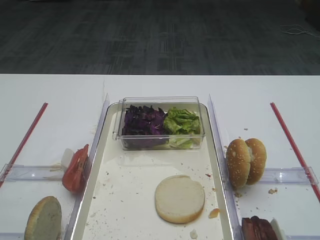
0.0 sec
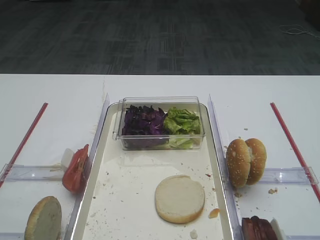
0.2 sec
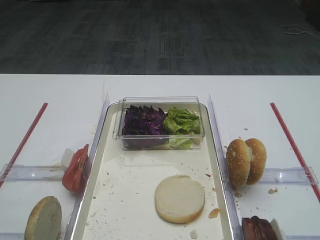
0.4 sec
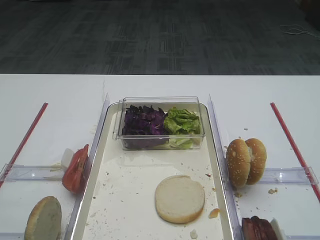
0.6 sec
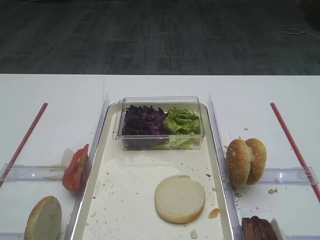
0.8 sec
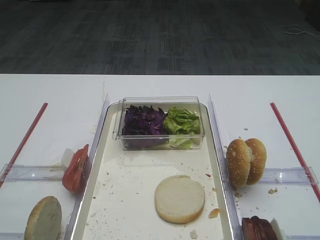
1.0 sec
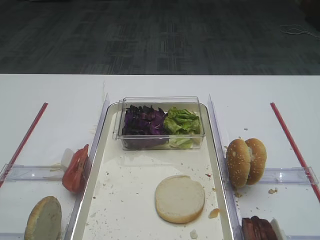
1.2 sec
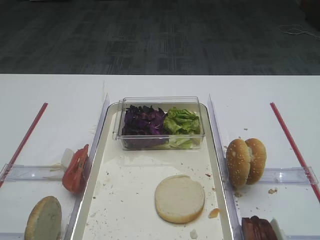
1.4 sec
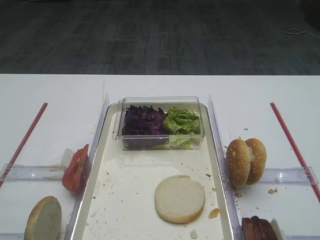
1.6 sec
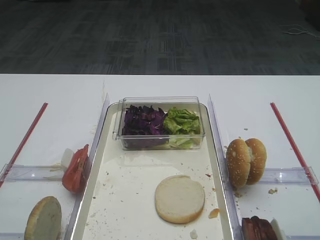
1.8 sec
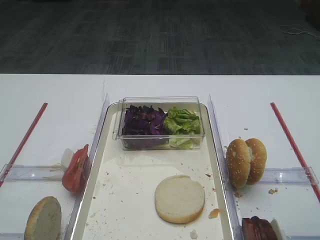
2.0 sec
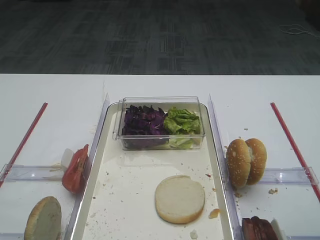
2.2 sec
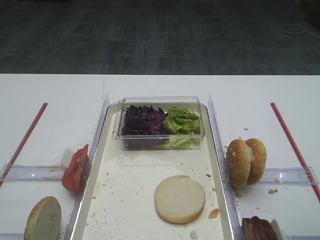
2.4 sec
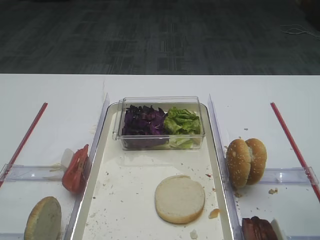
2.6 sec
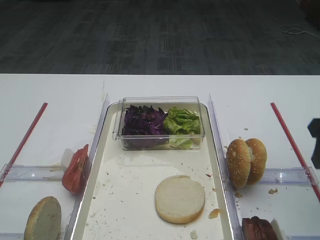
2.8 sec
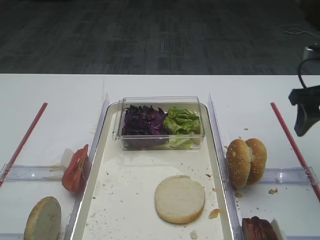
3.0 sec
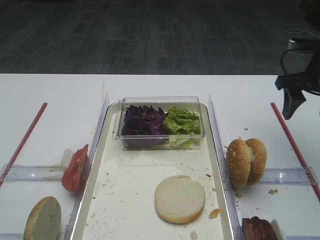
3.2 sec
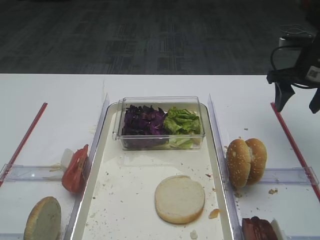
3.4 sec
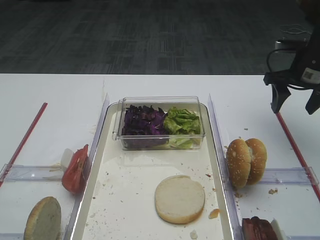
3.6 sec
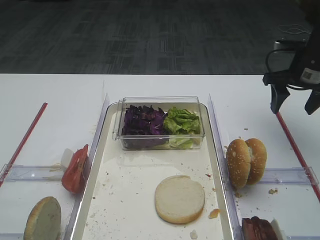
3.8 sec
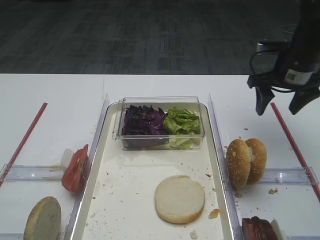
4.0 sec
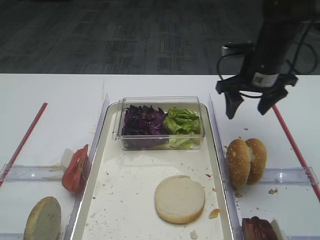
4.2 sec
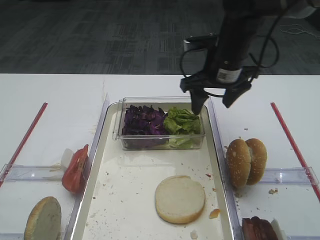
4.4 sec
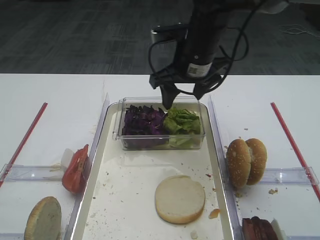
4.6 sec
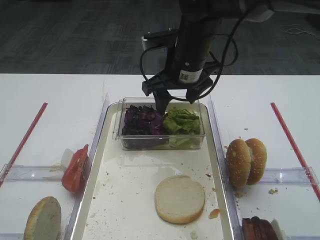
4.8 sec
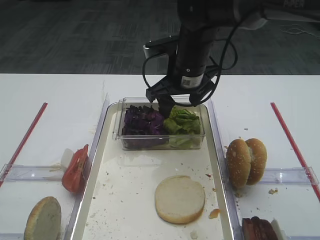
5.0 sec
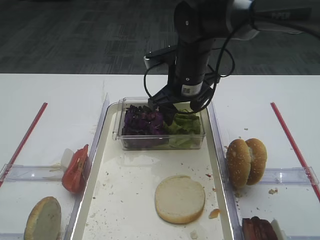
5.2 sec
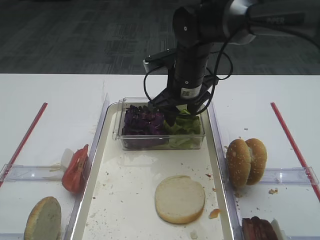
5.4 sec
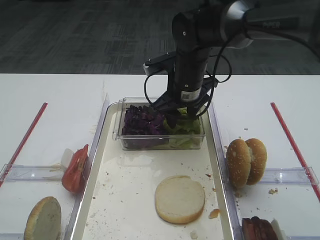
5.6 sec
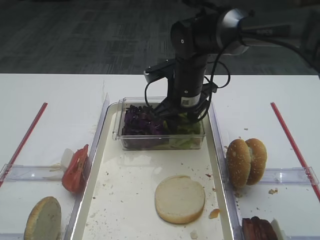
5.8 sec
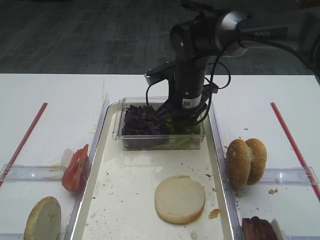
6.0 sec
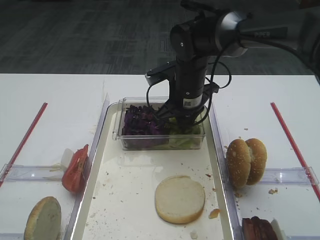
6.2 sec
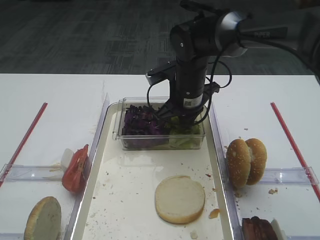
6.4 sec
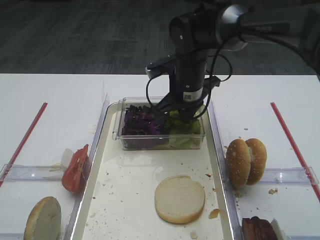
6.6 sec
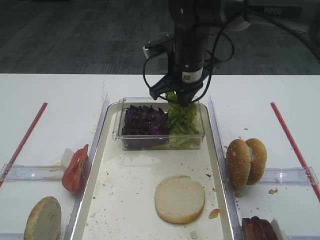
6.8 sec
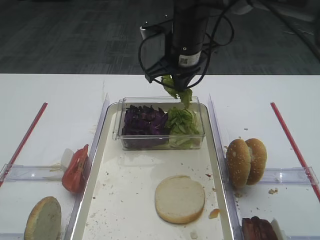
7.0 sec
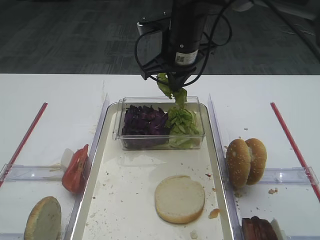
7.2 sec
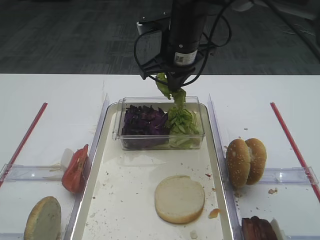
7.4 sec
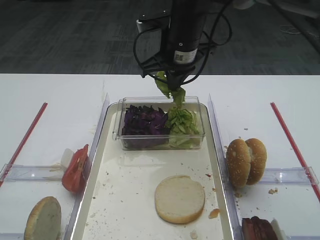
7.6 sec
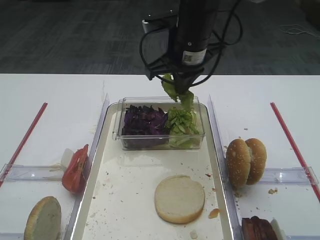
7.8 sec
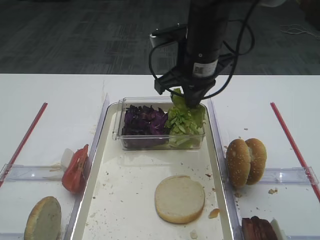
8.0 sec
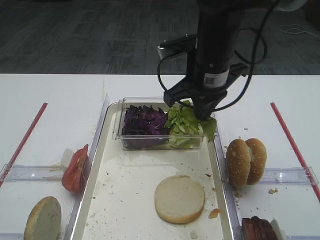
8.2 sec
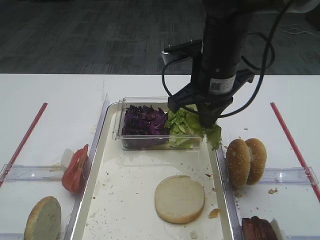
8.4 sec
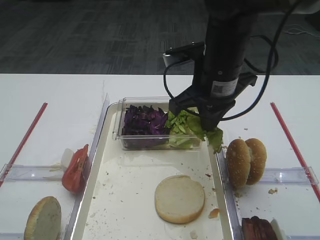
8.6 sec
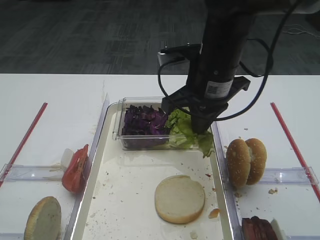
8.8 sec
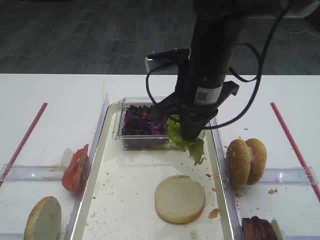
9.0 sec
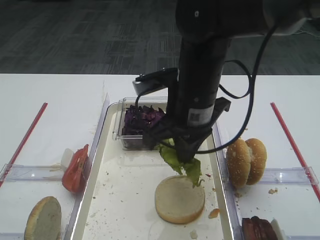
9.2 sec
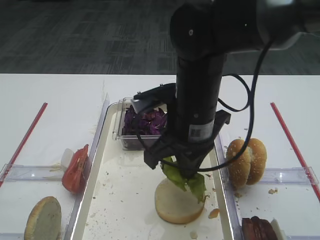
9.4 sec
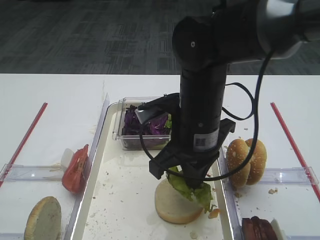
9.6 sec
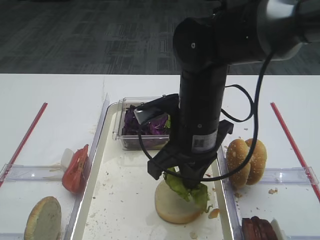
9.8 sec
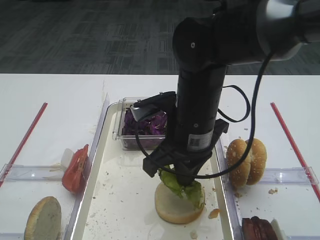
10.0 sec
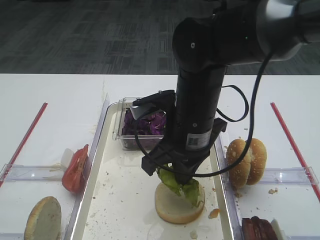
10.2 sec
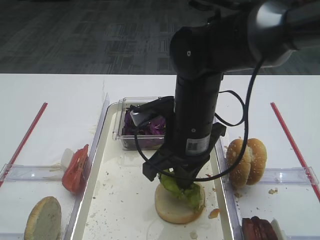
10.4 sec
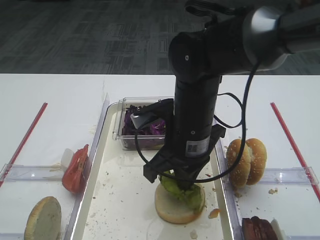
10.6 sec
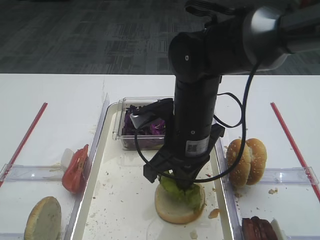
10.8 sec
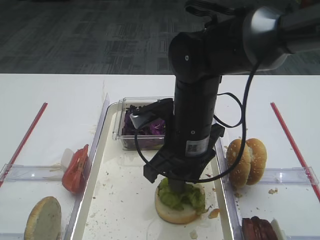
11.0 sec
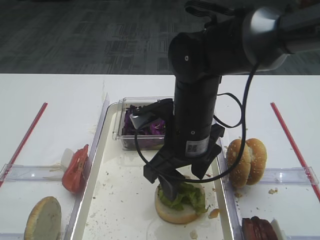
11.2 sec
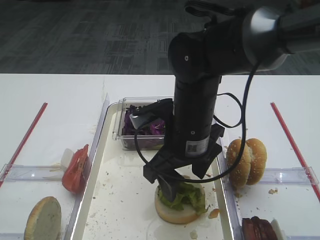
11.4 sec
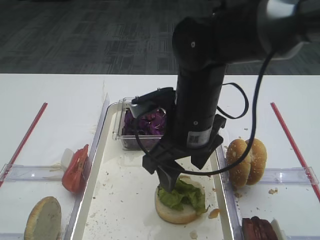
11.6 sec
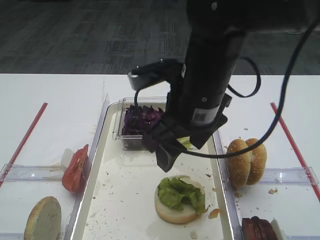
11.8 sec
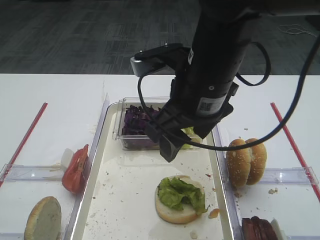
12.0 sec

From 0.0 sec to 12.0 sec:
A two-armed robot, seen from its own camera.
Step, from 0.0 sec to 6.8 sec: Pick up the lettuce leaf with the right gripper.
Step, from 7.0 sec to 11.6 sec: Place the lettuce leaf on the bread slice with the right gripper.
From 1.6 sec to 3.0 sec: The right gripper goes approximately 25 cm forward.
From 3.0 sec to 4.4 sec: The right gripper goes roughly 20 cm to the left and forward.
From 4.4 sec to 6.0 sec: The right gripper moves downward and to the left, about 10 cm, and closes its fingers.
From 6.0 sec to 7.6 sec: The right gripper moves upward, roughly 10 cm, and closes.
From 7.6 sec to 9.0 sec: The right gripper moves backward, about 10 cm.
From 9.0 sec to 10.4 sec: The right gripper shifts some 5 cm downward.
From 10.4 sec to 12.0 sec: The right gripper goes about 10 cm upward, and opens its fingers.

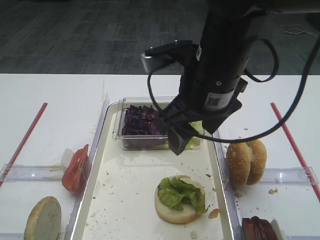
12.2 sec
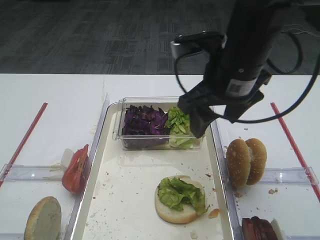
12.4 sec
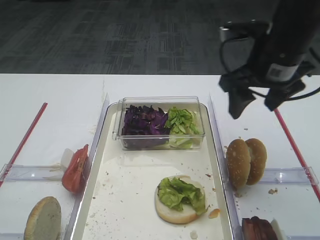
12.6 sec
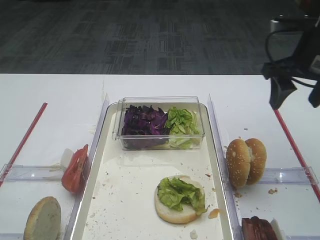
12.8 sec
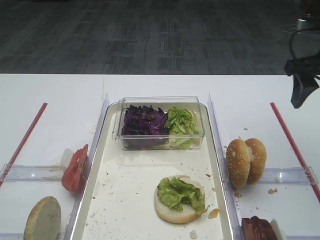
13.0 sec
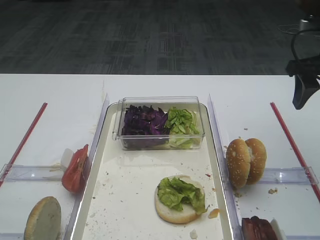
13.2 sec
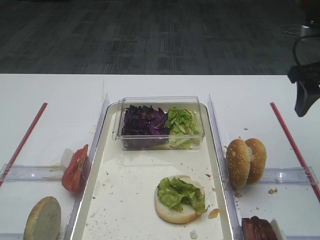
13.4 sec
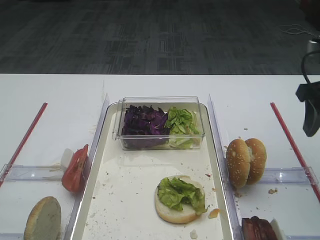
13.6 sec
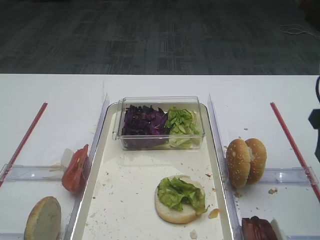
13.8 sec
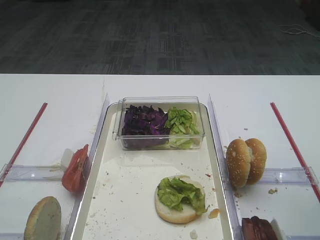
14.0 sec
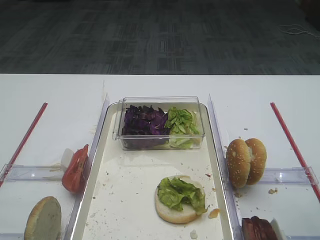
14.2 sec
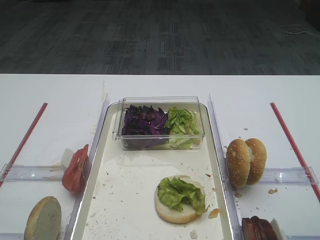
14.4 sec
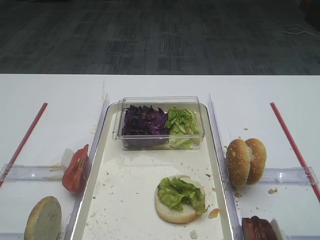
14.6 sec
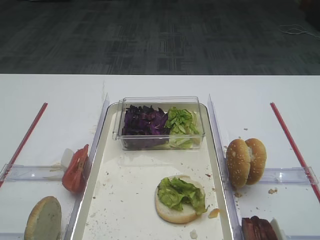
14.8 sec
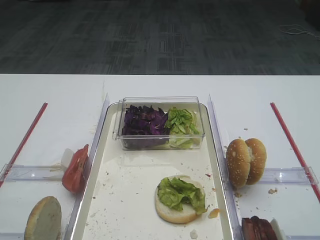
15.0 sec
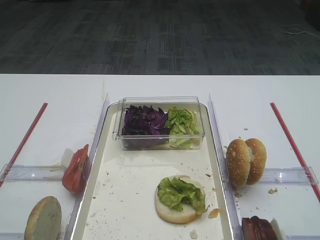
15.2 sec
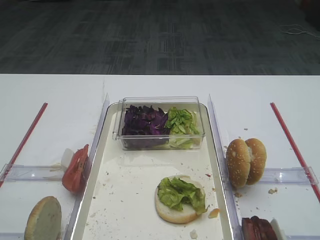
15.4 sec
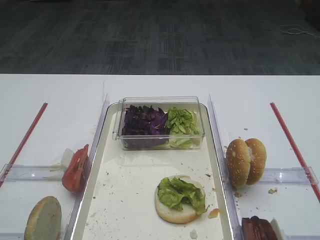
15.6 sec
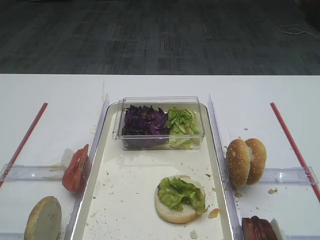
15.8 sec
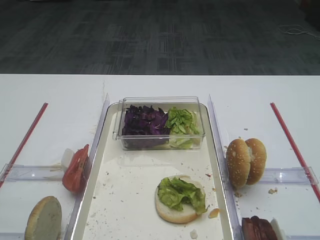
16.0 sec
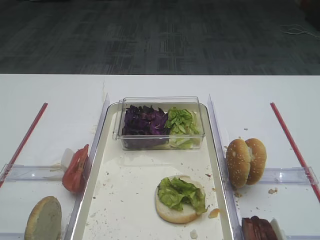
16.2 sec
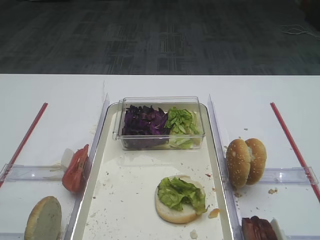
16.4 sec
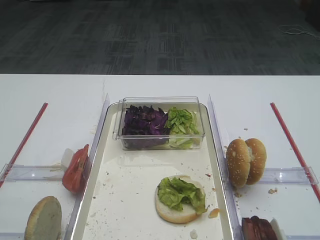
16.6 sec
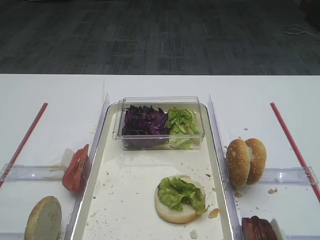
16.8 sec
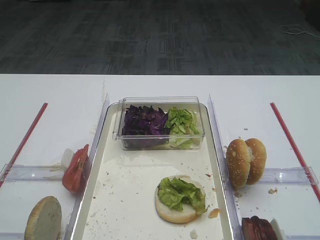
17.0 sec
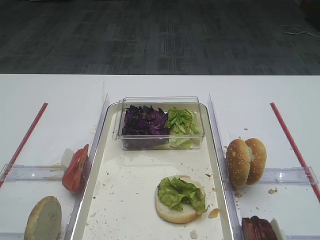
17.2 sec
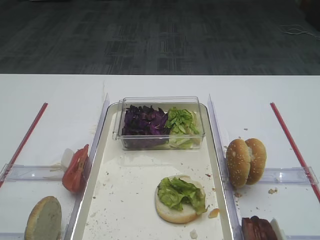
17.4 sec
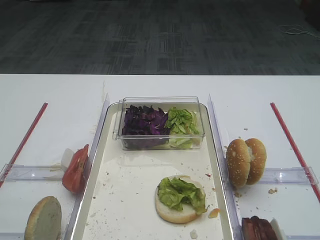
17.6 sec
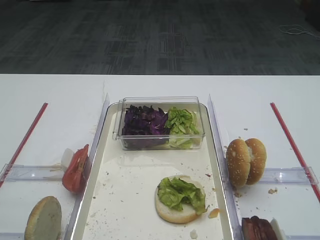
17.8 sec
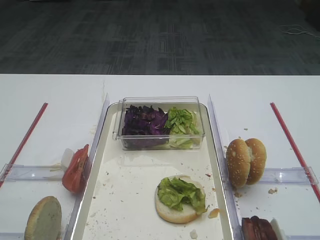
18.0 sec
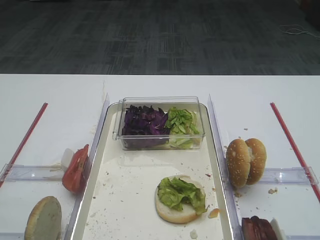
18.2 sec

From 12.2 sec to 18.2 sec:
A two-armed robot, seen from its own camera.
From 12.2 sec to 13.8 sec: The right gripper goes roughly 20 cm to the right.
From 13.8 sec to 15.2 sec: The right gripper is displaced backward by some 20 cm.
From 16.6 sec to 18.2 sec: The two grippers keep their place.

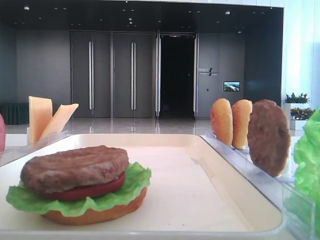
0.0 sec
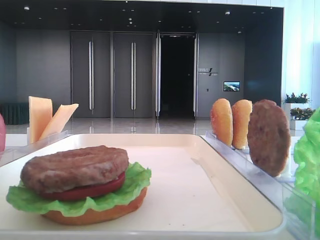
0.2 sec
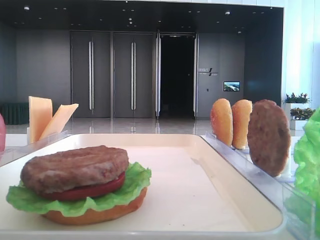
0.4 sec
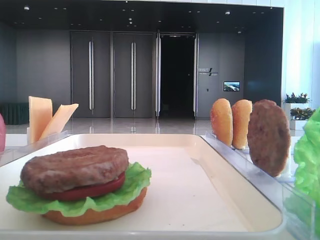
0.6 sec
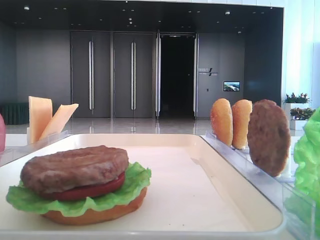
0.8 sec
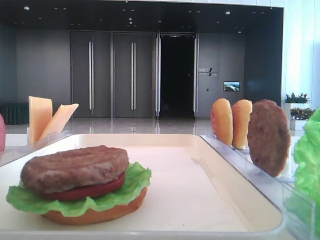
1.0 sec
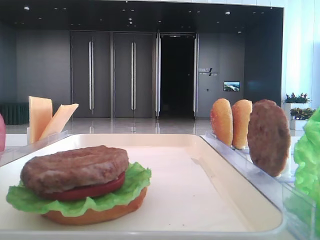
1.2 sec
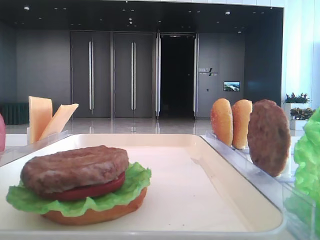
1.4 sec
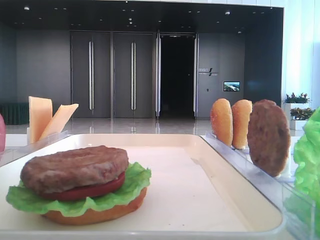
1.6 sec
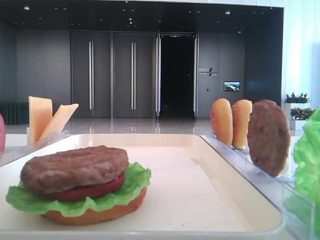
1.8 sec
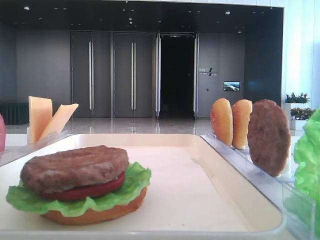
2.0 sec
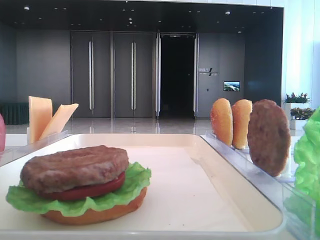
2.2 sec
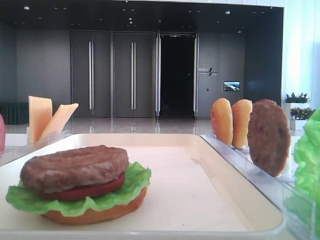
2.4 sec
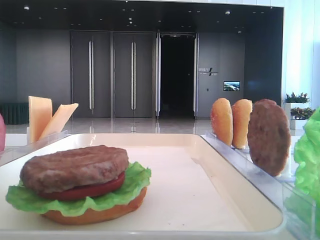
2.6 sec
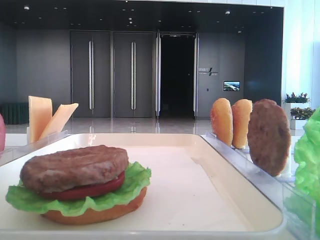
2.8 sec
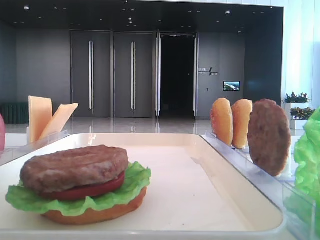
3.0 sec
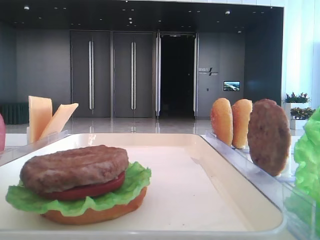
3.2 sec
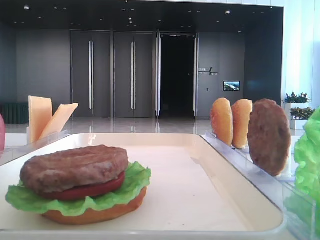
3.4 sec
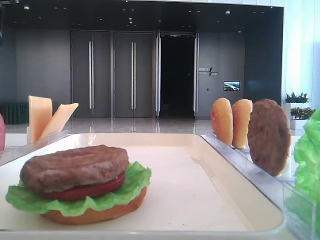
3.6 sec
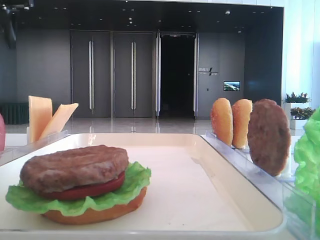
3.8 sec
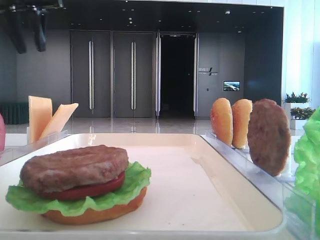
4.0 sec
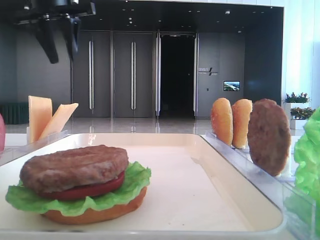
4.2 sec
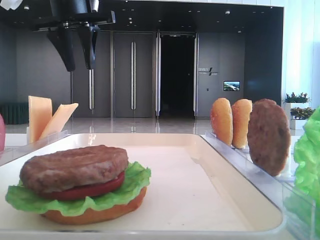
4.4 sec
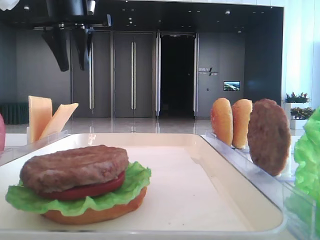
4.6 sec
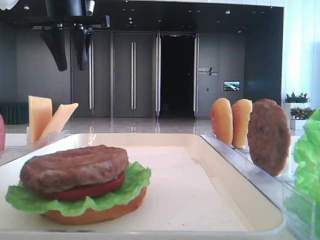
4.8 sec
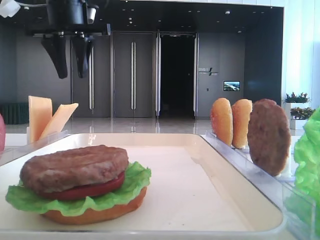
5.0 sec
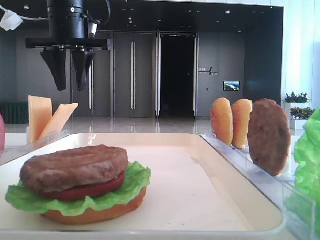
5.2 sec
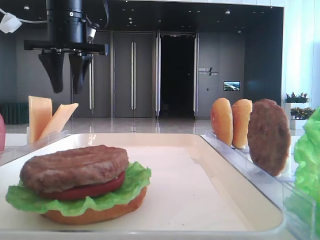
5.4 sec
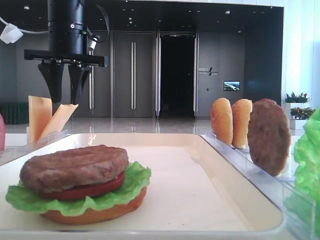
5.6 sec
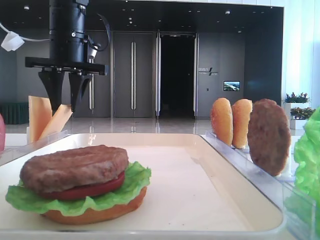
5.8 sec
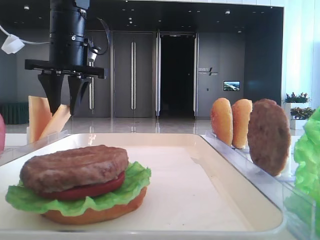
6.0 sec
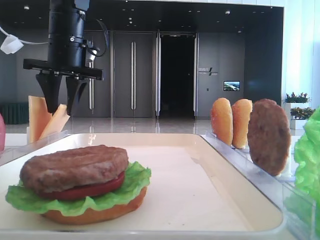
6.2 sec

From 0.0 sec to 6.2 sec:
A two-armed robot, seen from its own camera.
From 1.6 sec to 3.2 sec: The left gripper shifts approximately 40 cm forward.
From 3.2 sec to 4.6 sec: The left gripper goes some 15 cm to the right.
From 4.6 sec to 6.2 sec: The left gripper goes roughly 10 cm downward.
